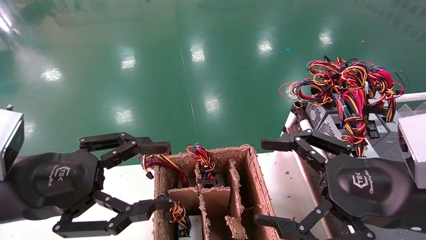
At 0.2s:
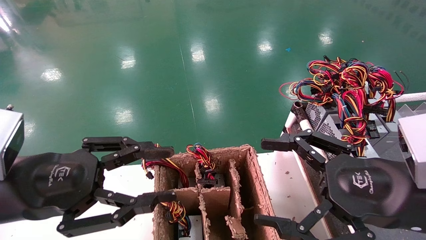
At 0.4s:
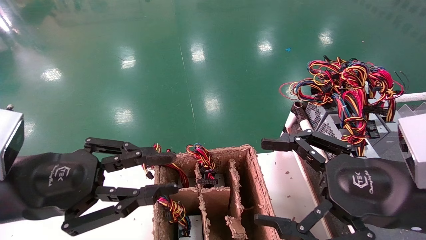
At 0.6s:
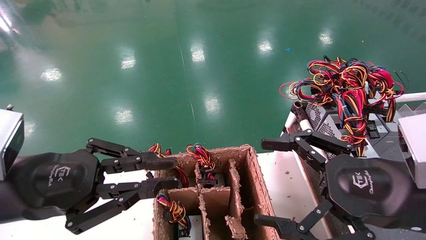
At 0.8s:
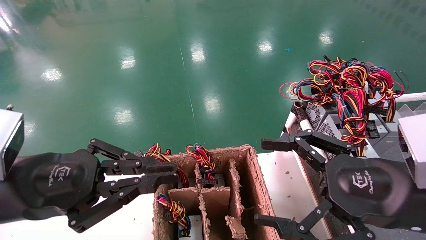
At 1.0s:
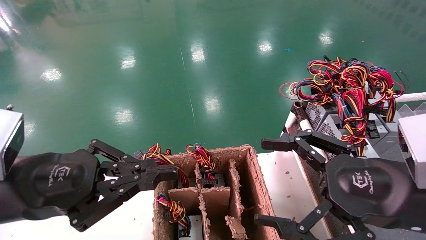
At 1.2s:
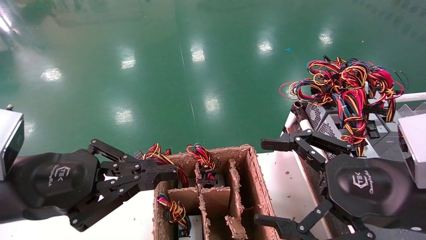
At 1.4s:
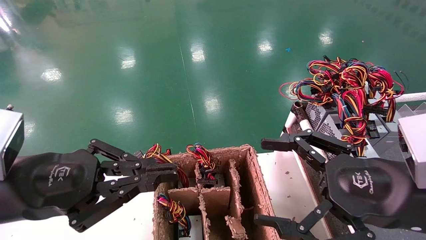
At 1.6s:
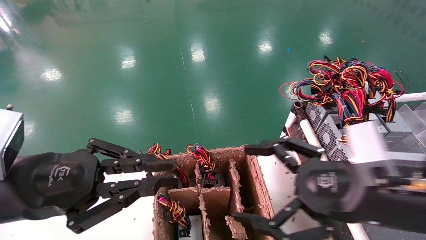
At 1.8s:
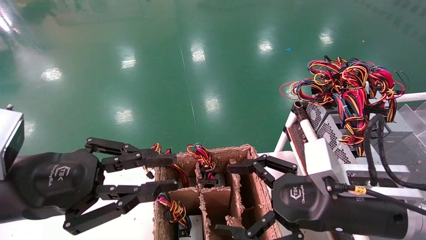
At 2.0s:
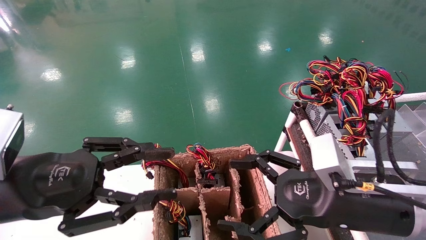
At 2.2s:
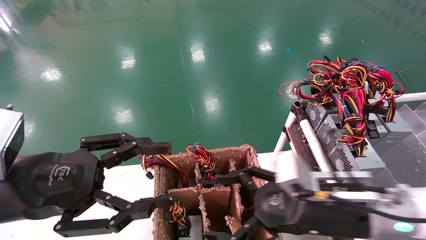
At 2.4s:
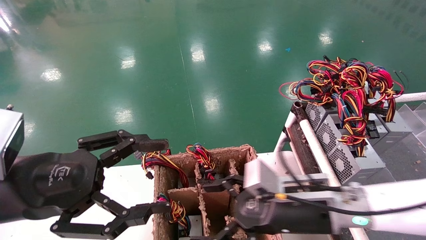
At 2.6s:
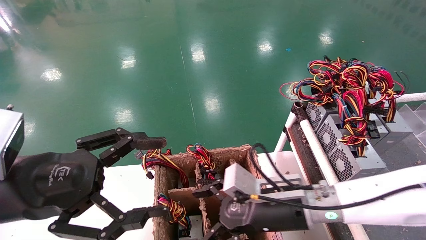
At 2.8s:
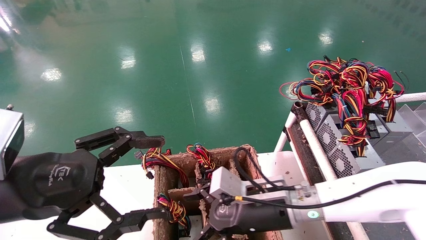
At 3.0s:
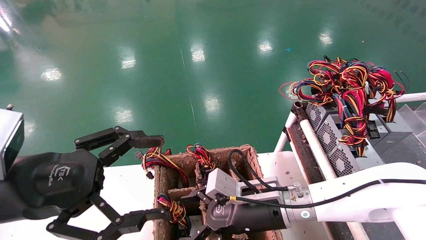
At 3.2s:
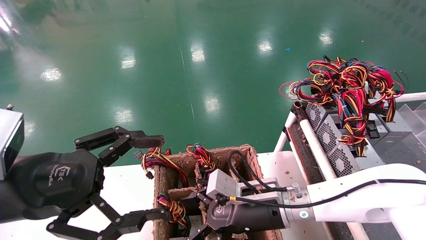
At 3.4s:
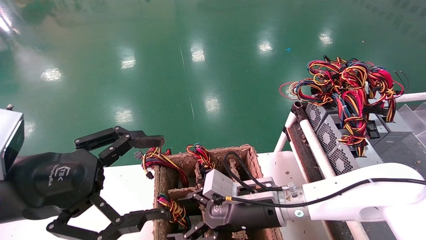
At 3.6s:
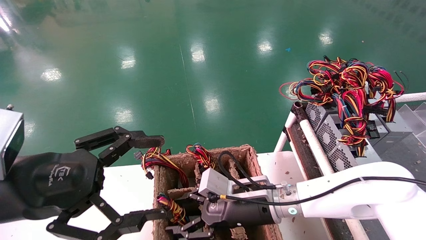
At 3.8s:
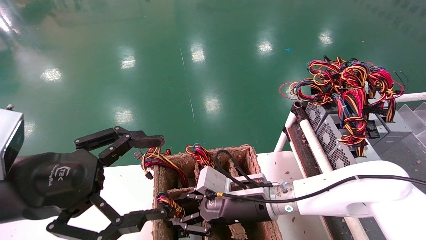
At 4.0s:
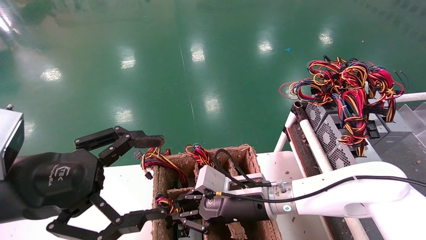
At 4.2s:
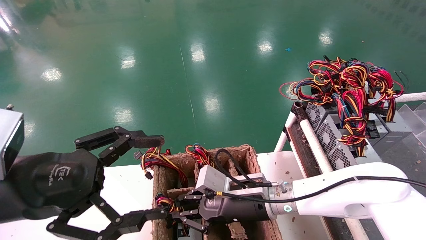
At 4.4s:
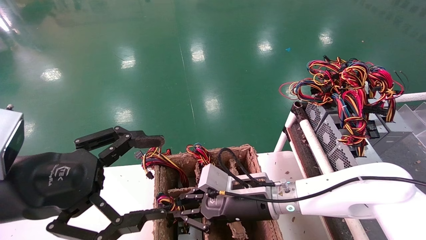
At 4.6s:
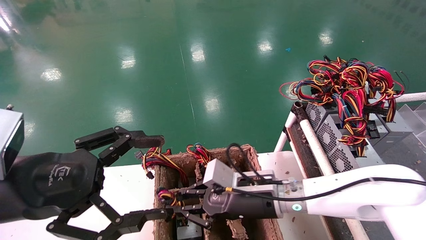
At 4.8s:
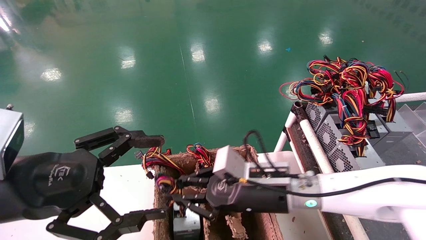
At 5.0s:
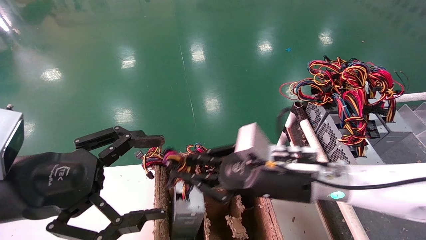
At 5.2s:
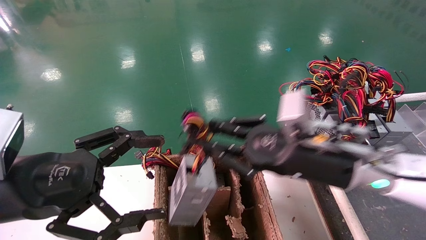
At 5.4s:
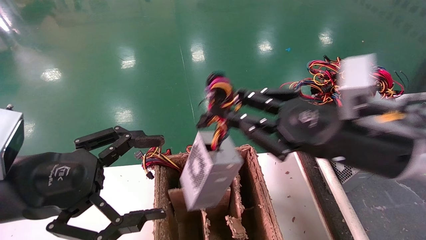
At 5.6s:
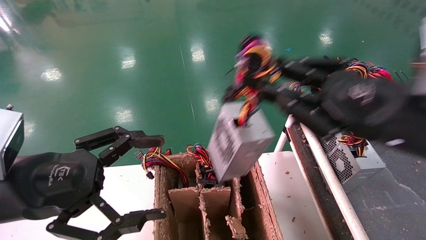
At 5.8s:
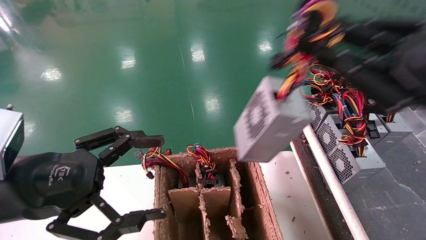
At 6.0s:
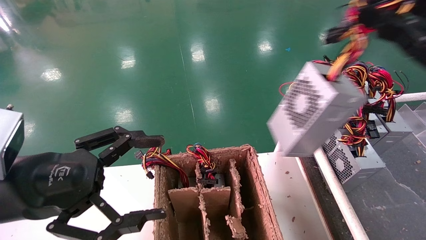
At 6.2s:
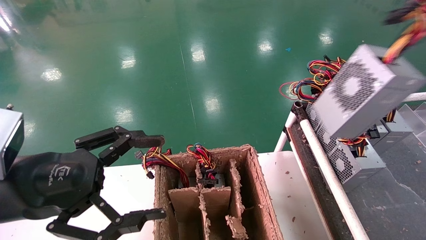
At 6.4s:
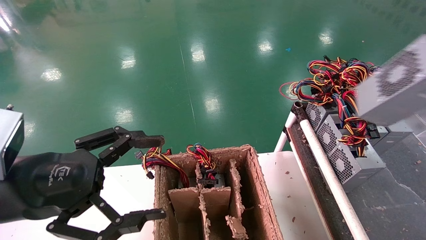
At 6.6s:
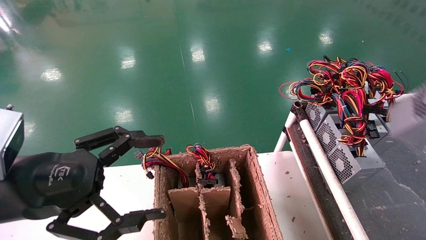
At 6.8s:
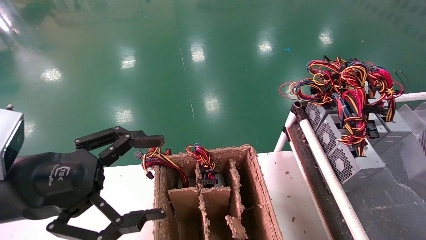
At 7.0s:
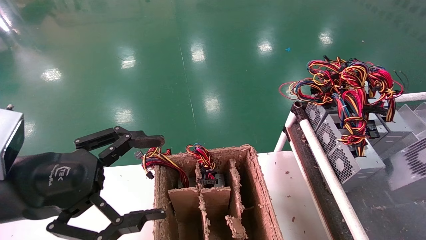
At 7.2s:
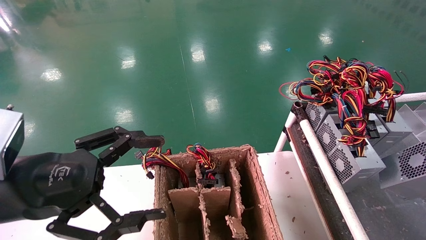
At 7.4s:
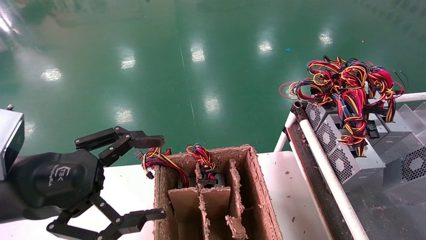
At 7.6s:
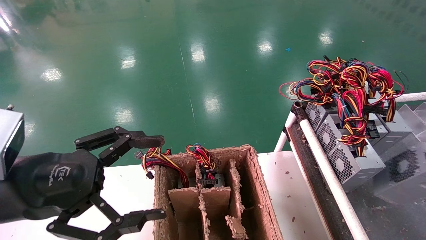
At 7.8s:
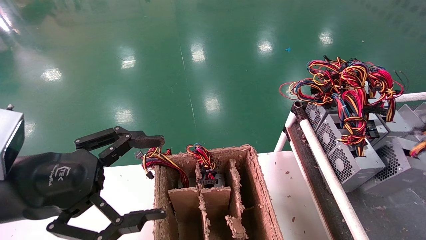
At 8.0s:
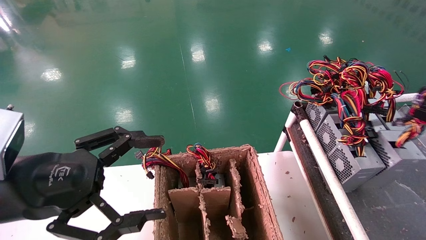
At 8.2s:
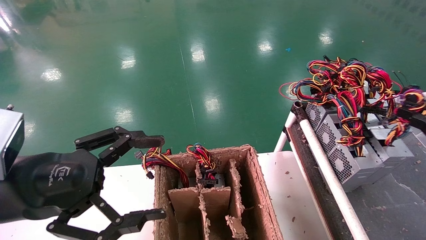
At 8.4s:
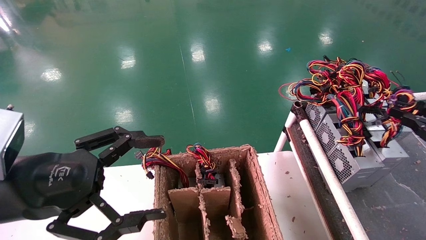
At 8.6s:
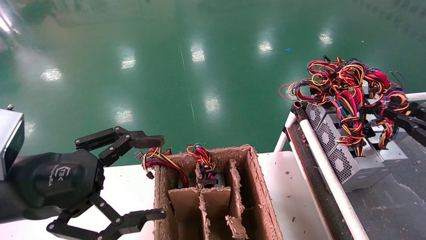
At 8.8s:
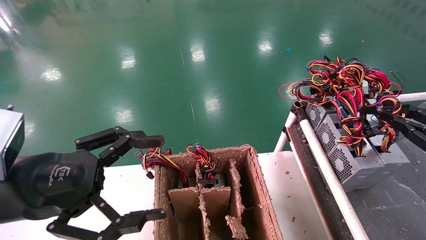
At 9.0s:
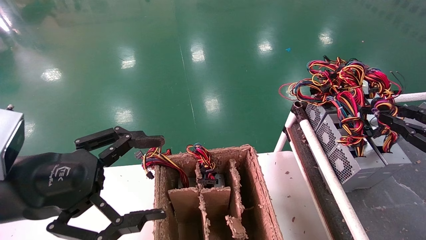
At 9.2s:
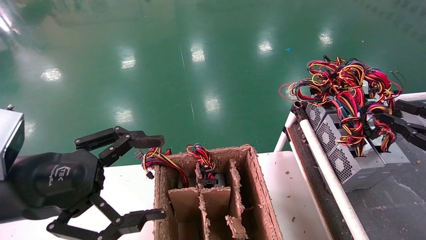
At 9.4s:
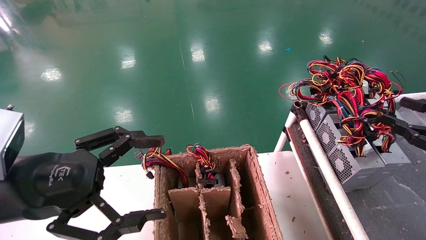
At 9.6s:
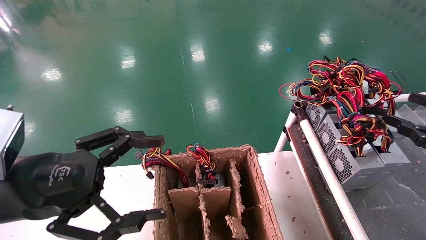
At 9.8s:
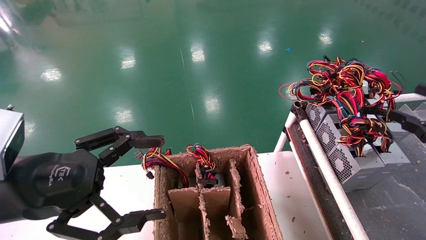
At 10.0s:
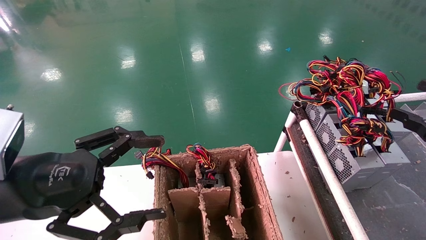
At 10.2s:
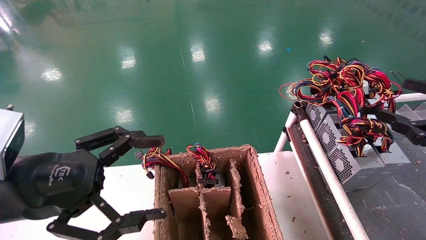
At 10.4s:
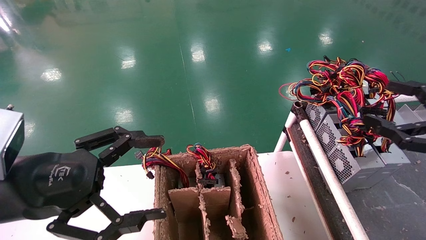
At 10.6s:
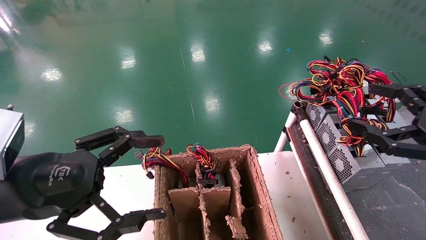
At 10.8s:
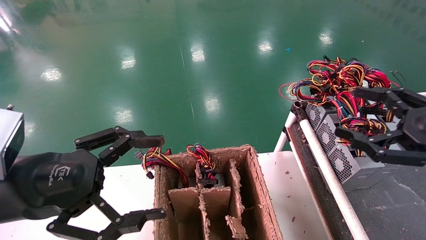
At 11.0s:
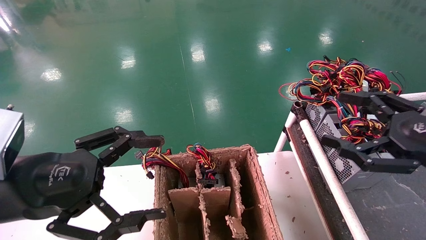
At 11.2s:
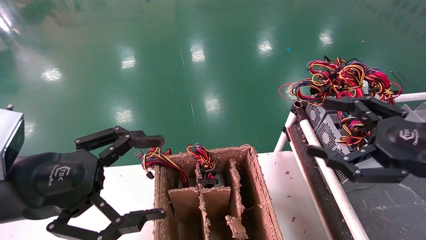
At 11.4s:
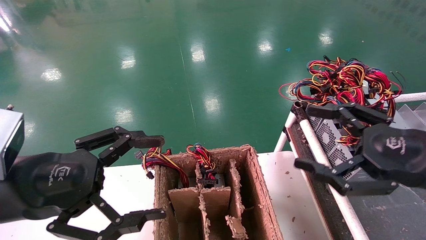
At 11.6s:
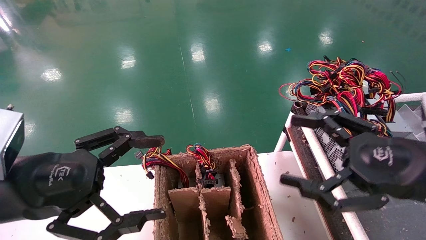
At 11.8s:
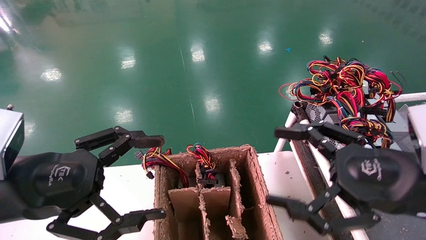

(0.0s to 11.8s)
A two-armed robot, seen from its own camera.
Step, 1.8s - 4.2s: Grab and lift the power supply from the large box.
Step, 4.4s - 9.0s: Place the power supply on the operating table.
0.0s - 1.4s: The left gripper closes.
1.4s - 3.0s: The right gripper travels to the left, forward and downward by approximately 20 cm, while the left gripper opens its fingers.
3.0s - 4.4s: The right gripper closes its fingers.
4.4s - 6.0s: The right gripper shifts roughly 40 cm to the right, upward and backward.
6.0s - 7.4s: The right gripper is displaced to the right and downward by about 25 cm.
7.4s - 8.8s: The right gripper is displaced forward and to the left by roughly 10 cm.
8.8s - 10.4s: The right gripper moves to the left, approximately 5 cm, and opens its fingers.
10.4s - 11.8s: The right gripper shifts some 15 cm to the left.
